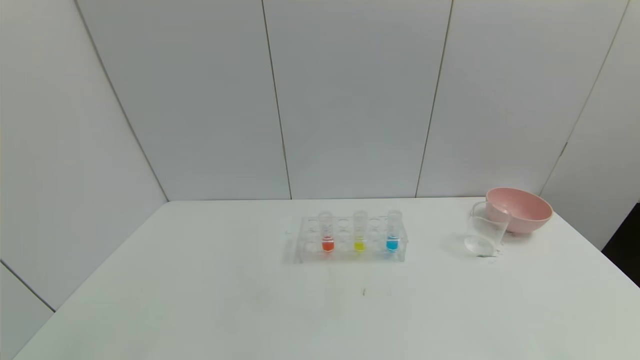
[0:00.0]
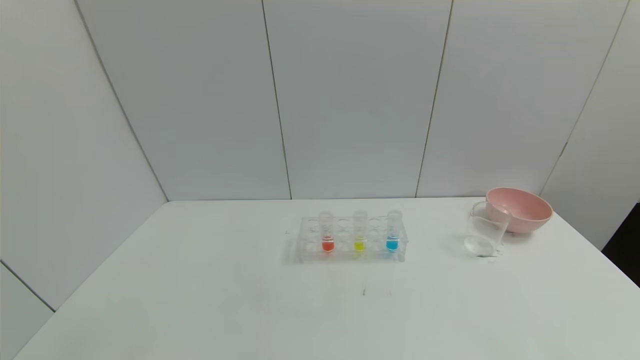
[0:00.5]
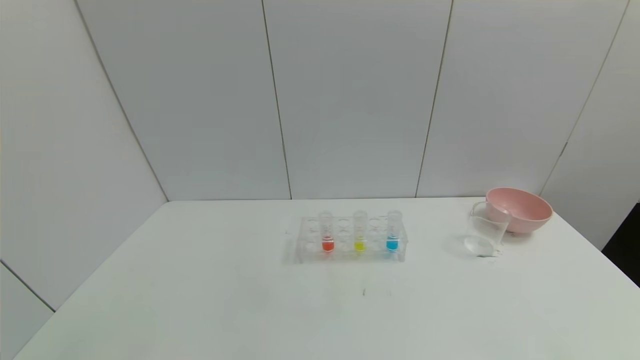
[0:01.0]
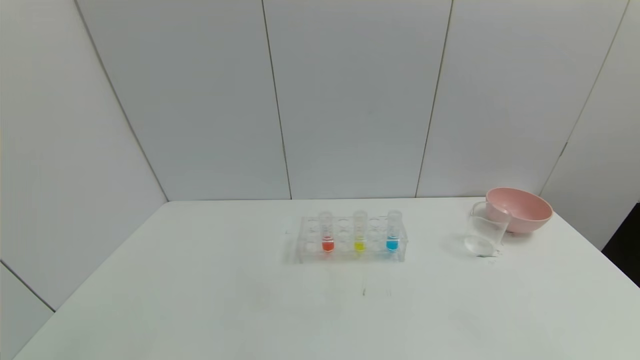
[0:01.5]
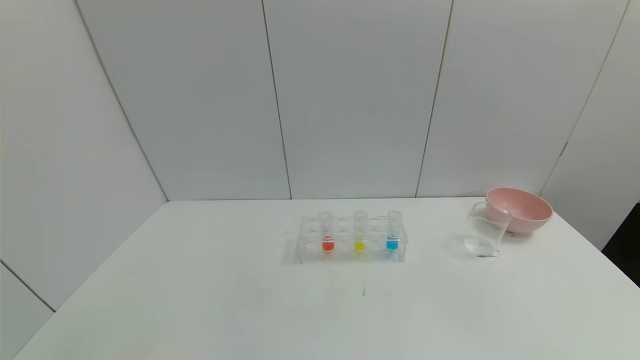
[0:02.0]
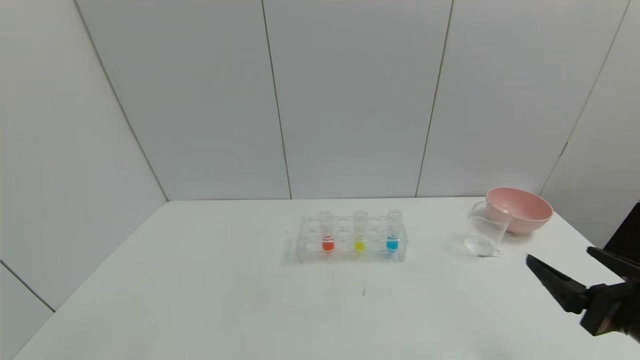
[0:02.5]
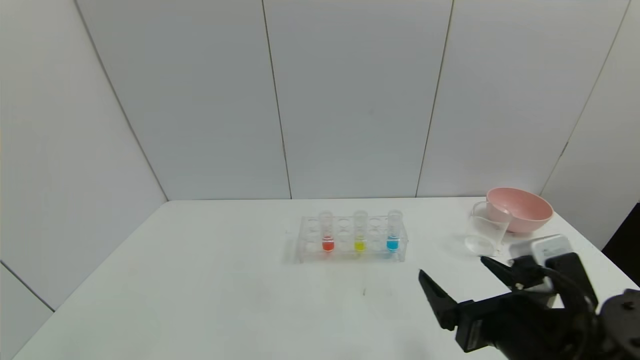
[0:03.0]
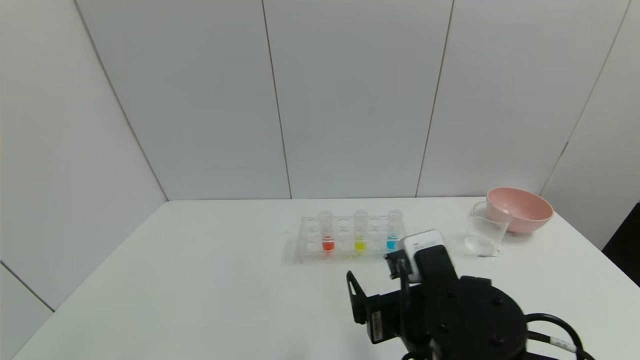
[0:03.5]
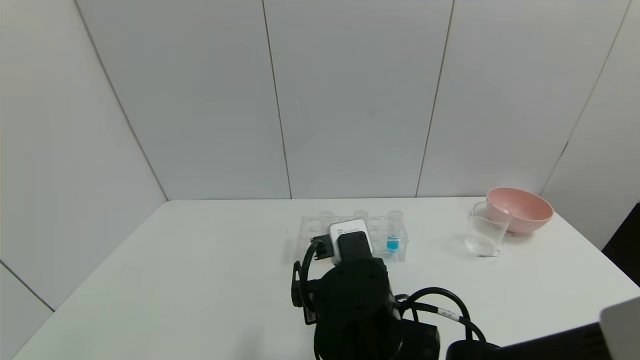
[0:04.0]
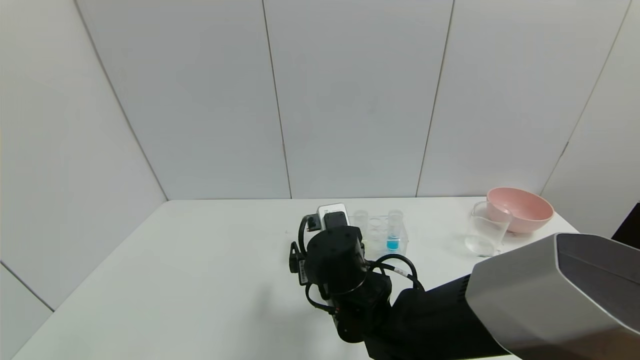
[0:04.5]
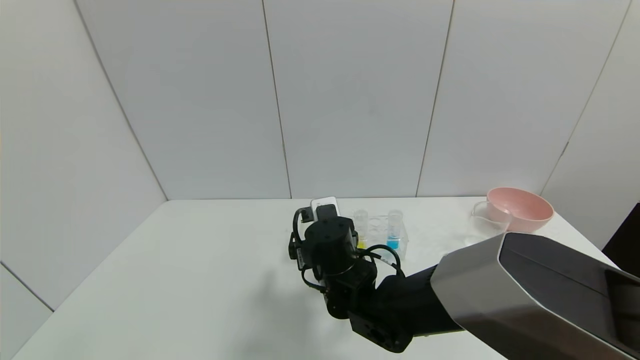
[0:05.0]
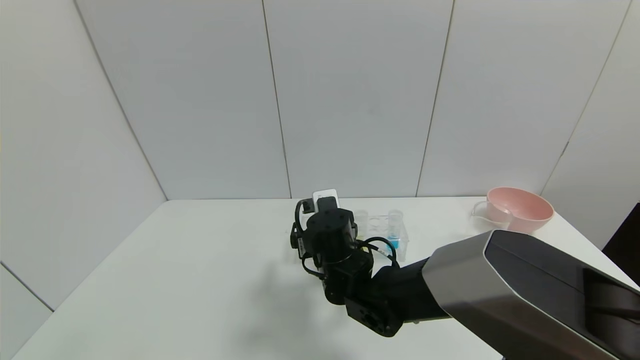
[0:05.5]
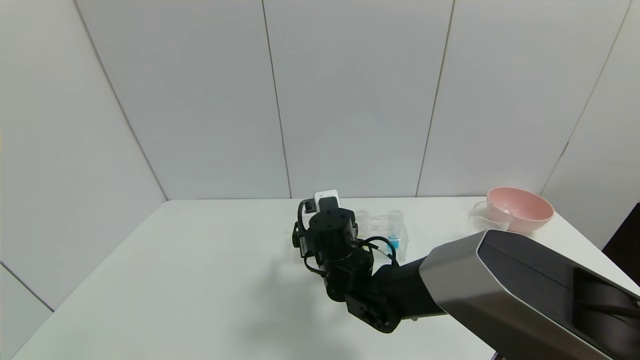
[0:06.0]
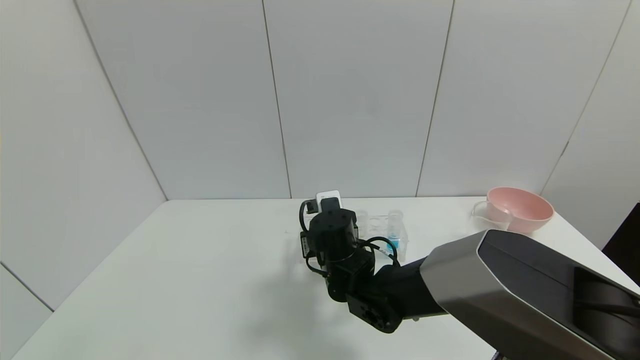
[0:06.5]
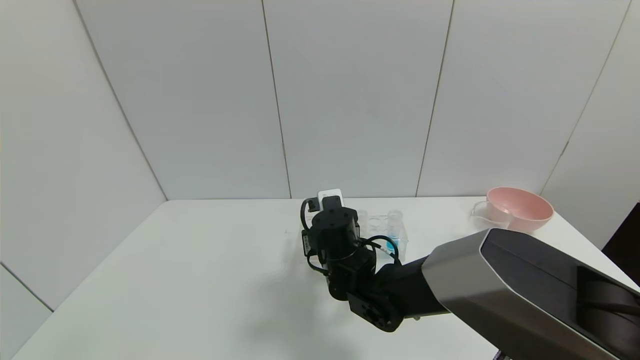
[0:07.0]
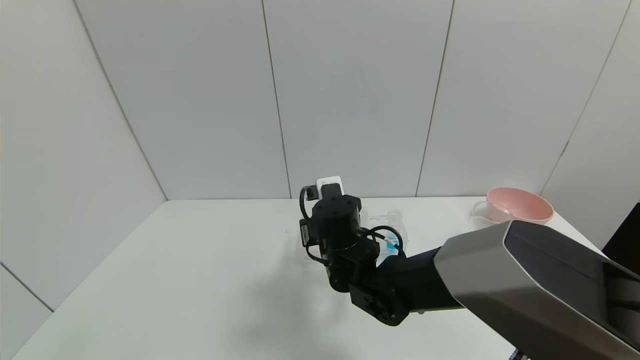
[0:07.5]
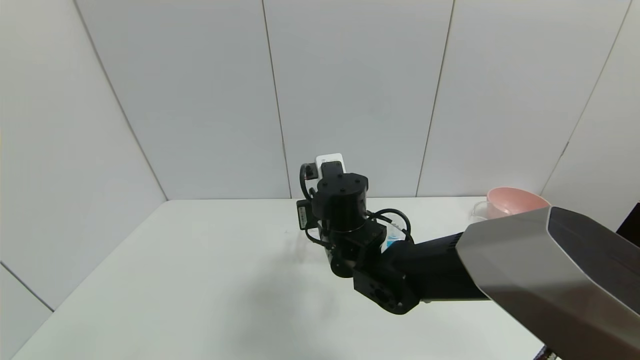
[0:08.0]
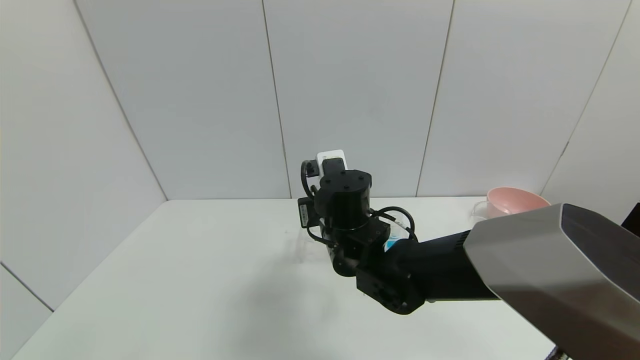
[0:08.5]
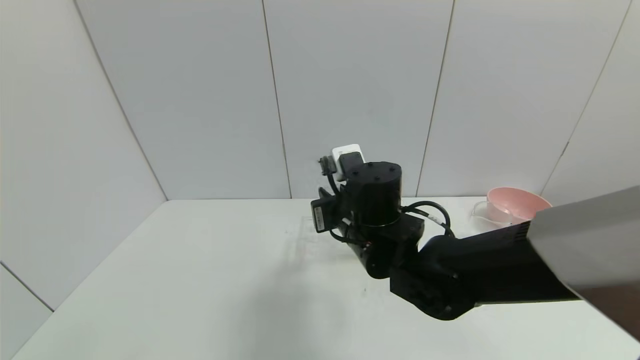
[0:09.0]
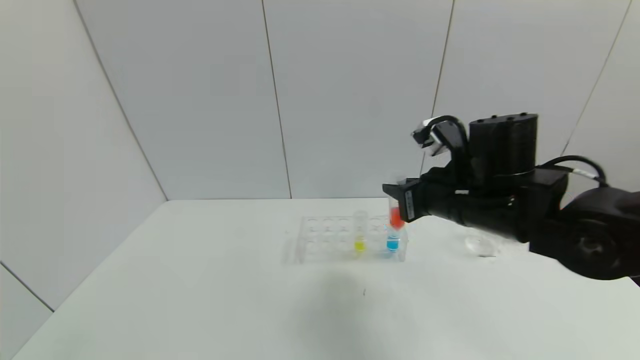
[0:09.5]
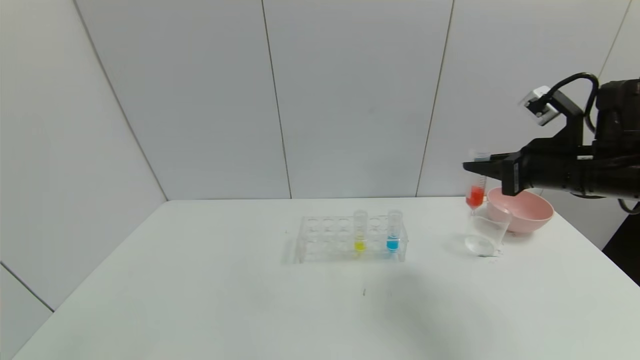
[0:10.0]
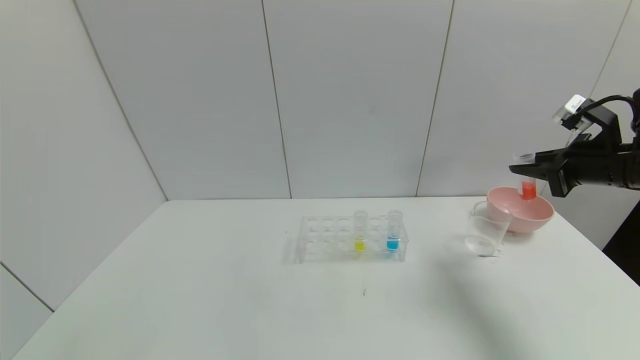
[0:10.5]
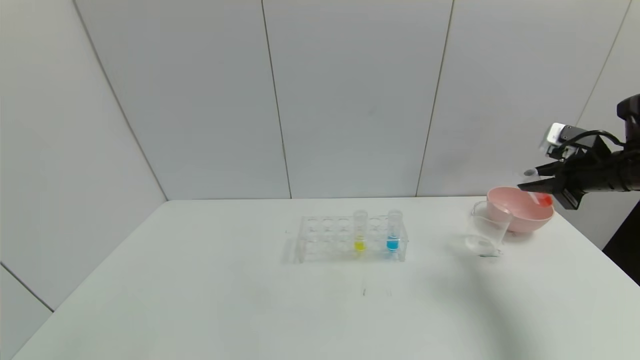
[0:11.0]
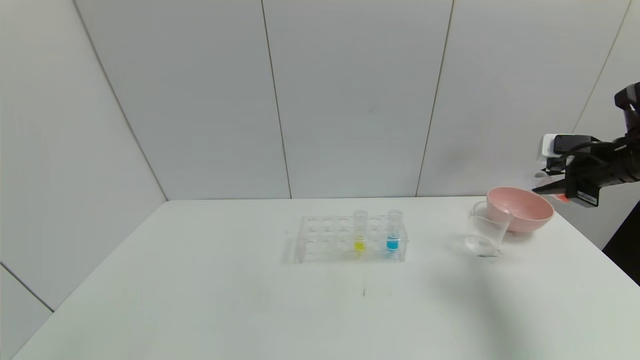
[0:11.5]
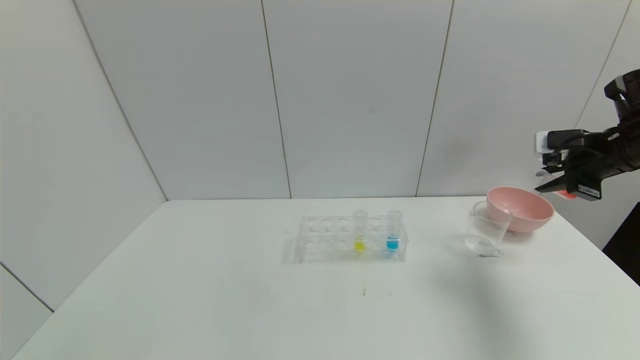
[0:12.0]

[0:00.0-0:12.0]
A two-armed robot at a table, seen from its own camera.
Task of the whole recording: pick up the test tube with red pigment and the test tube with blue pigment by grippers and pour them into the container.
Step, 0:00.0 to 0:09.5: Pick up the test tube containing the red reagent with right gripper.
0:02.0 to 0:04.0: The right gripper goes approximately 35 cm to the left and forward.
0:04.0 to 0:06.0: The right gripper moves forward, approximately 15 cm.
0:06.0 to 0:08.0: The right gripper heads upward, covering roughly 5 cm, and closes.
0:08.0 to 0:10.0: The right gripper shifts some 30 cm to the right.
0:10.0 to 0:12.0: The right gripper shifts roughly 10 cm to the right and forward.

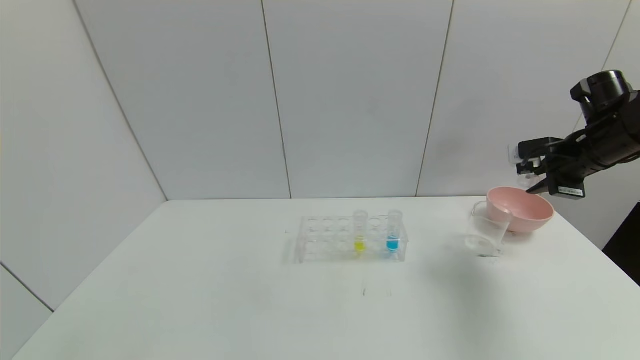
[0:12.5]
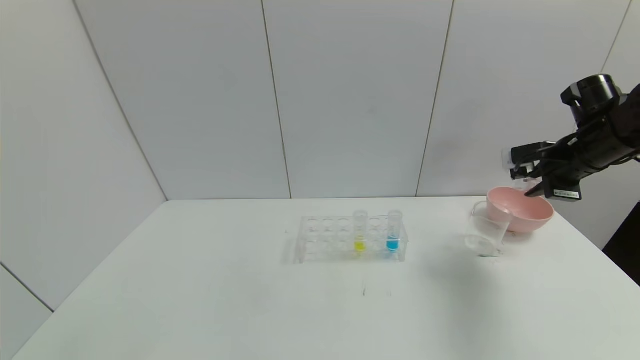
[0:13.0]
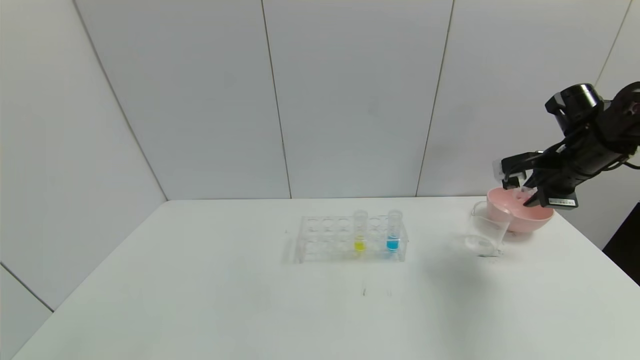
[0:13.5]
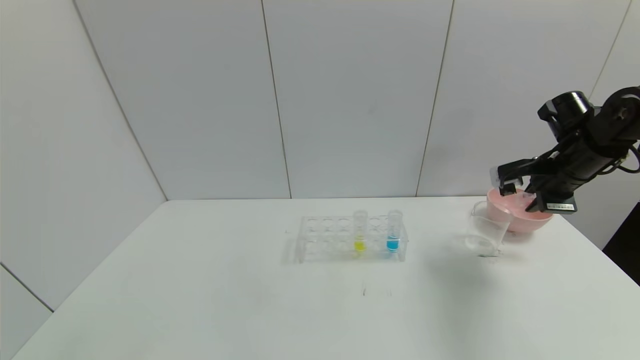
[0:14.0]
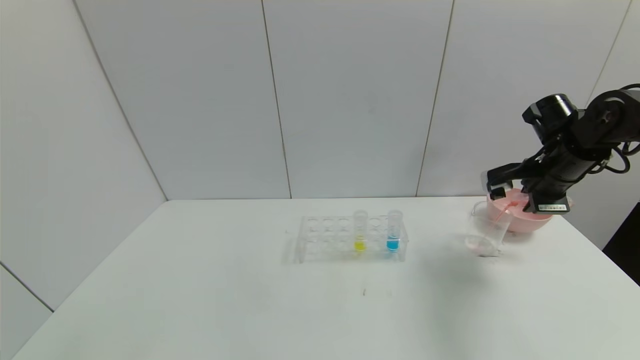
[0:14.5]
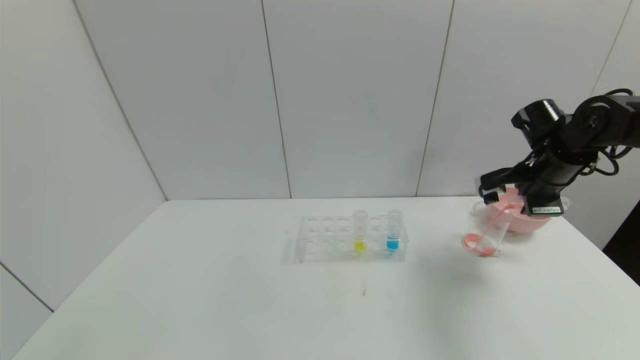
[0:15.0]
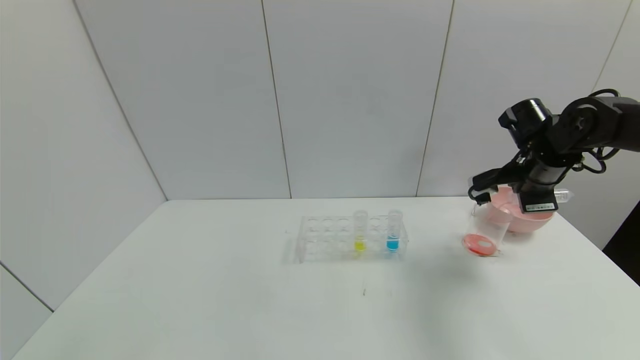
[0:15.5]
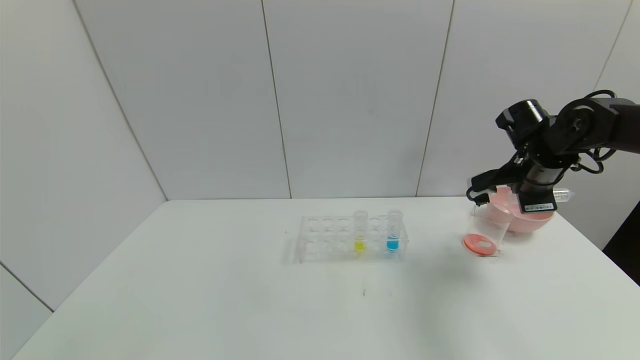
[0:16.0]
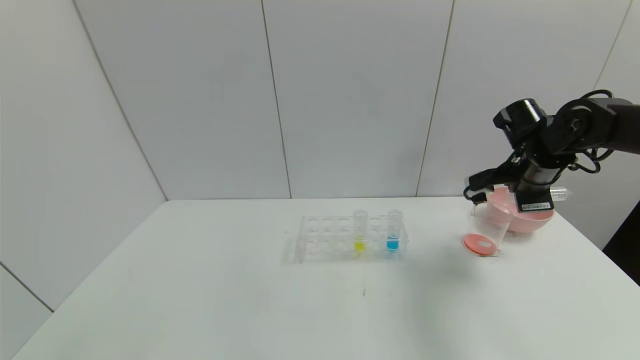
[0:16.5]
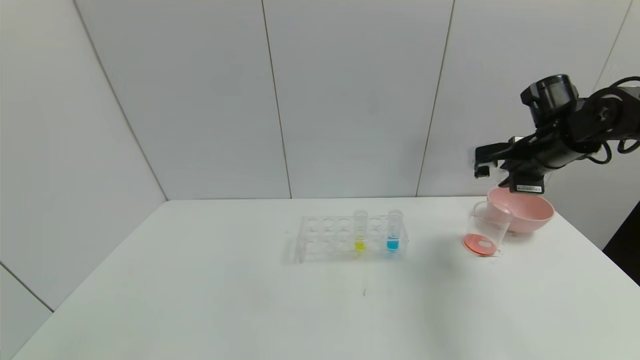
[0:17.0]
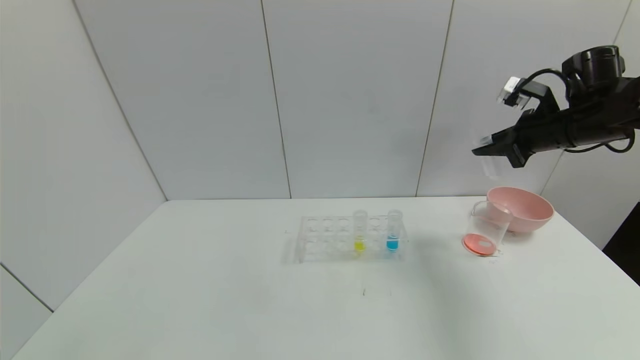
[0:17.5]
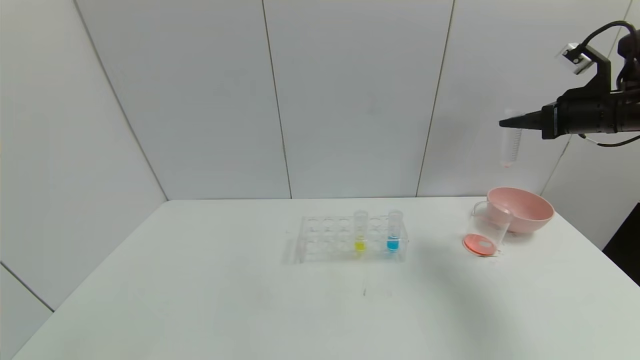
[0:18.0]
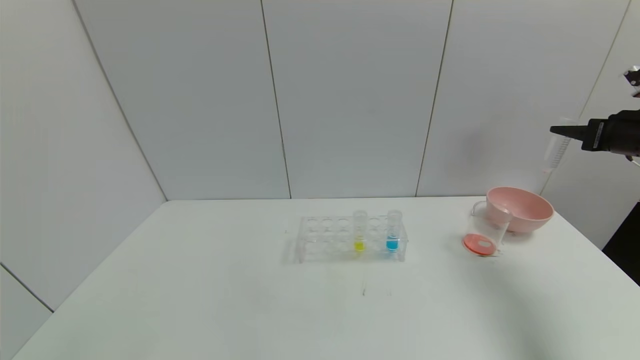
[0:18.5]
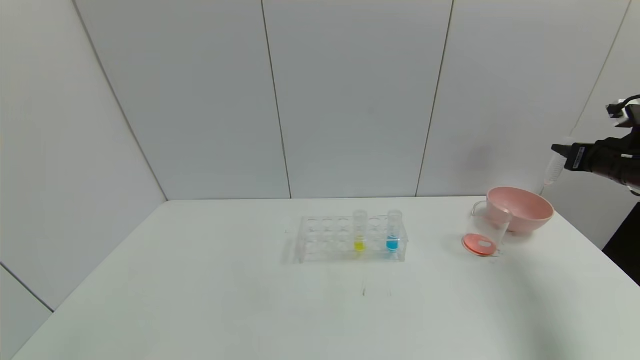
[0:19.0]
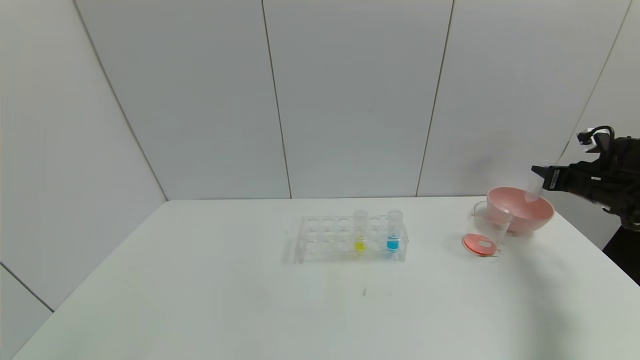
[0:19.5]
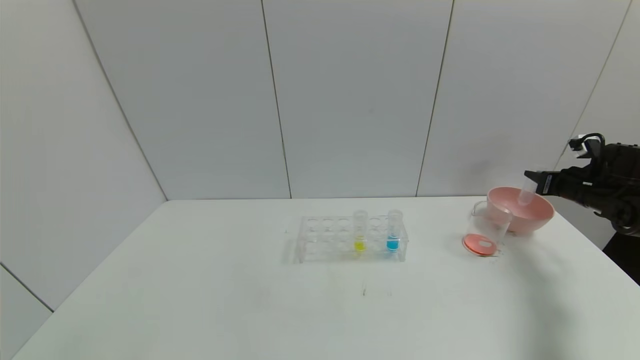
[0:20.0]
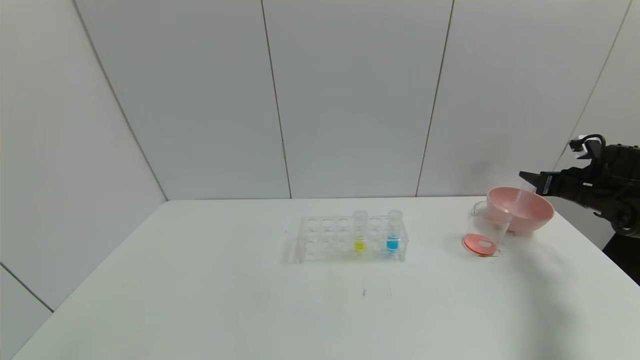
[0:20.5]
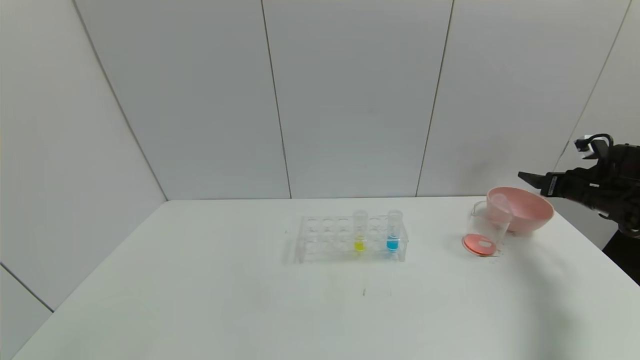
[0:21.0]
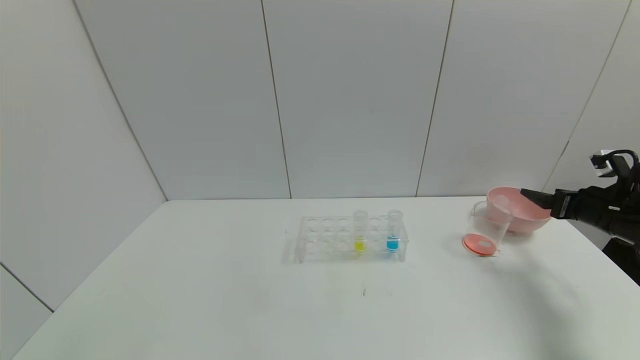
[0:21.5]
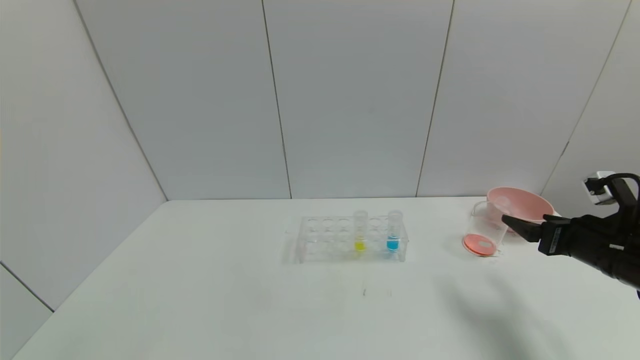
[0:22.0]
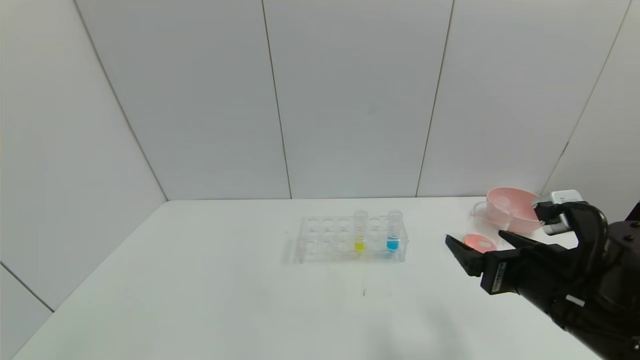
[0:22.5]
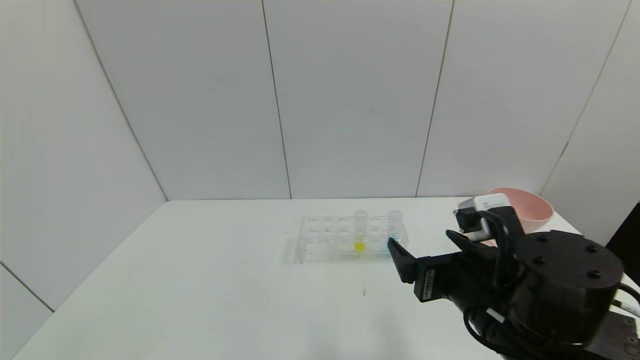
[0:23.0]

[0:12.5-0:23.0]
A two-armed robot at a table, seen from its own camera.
Task of the whole recording: pick up the test tube with red pigment and the test tube with blue pigment by grippers and pour them into the container.
Step, 0:12.5 to 0:18.5: Pour the red reagent into the graduated cylinder with right gripper.
Step, 0:19.0 to 0:22.0: Place the test tube into the bowl with right gripper.
0:12.5 to 0:14.5: The right gripper ends up roughly 5 cm from where it was.
0:14.5 to 0:16.5: There are only small adjustments of the grippers.
0:16.5 to 0:19.0: The right gripper goes some 15 cm to the right.
0:19.0 to 0:21.0: The right gripper heads downward, covering about 5 cm, and opens up.
0:21.0 to 0:23.0: The right gripper travels to the left and backward by roughly 40 cm.
